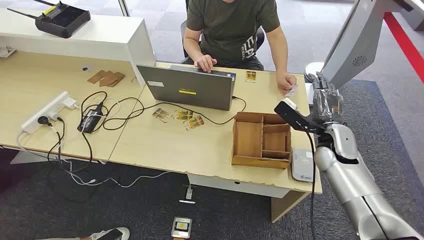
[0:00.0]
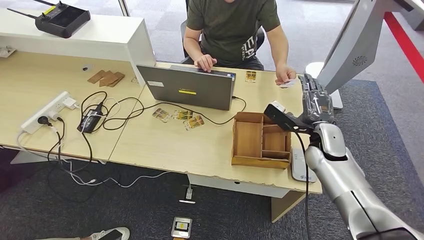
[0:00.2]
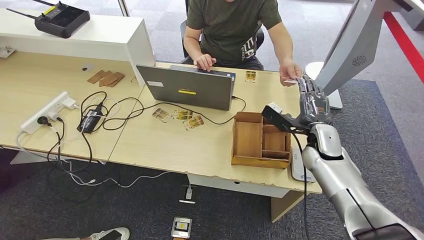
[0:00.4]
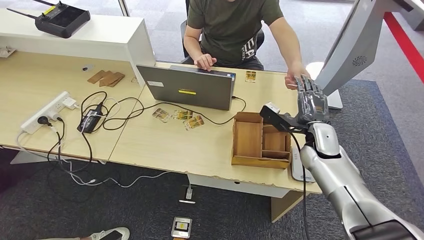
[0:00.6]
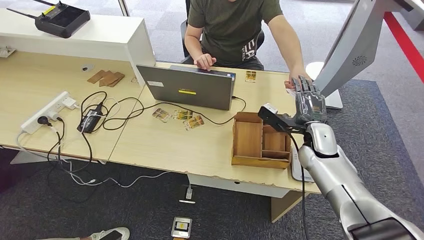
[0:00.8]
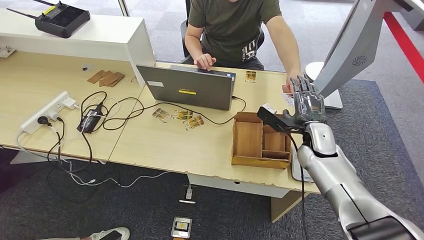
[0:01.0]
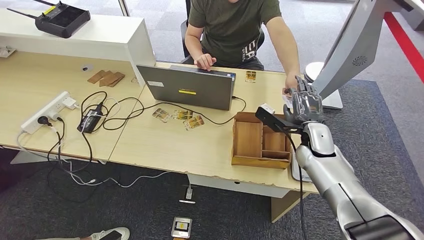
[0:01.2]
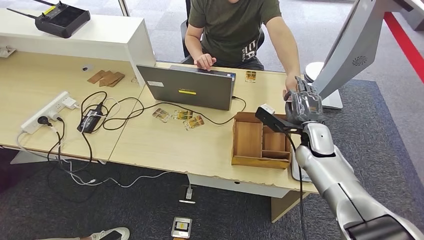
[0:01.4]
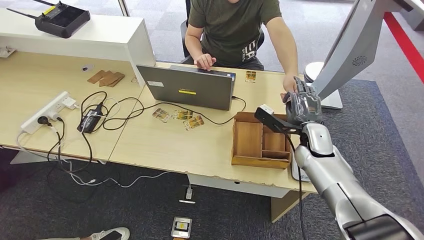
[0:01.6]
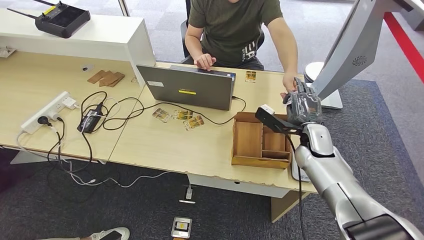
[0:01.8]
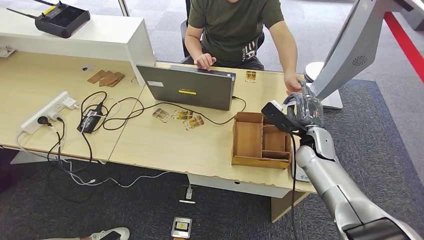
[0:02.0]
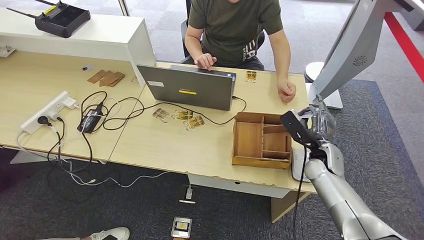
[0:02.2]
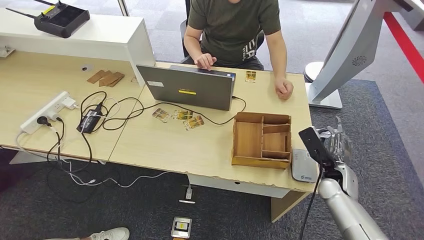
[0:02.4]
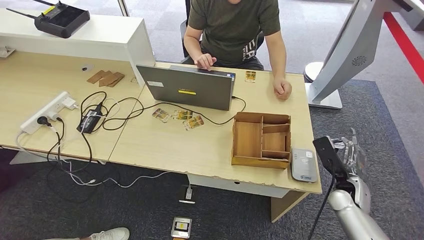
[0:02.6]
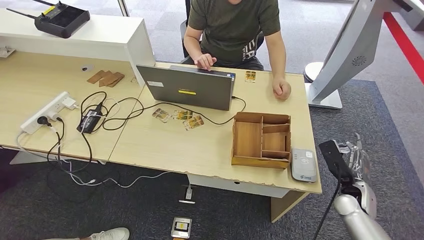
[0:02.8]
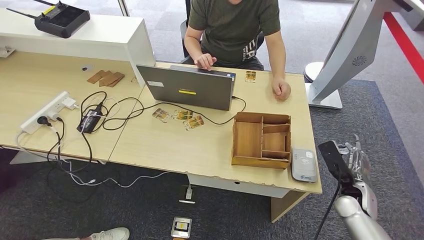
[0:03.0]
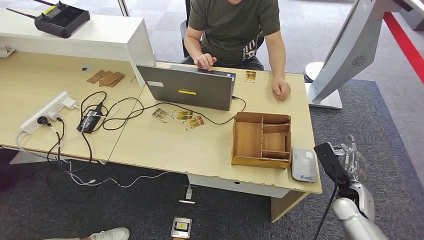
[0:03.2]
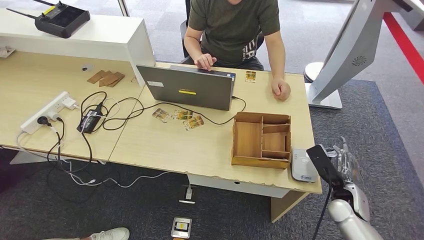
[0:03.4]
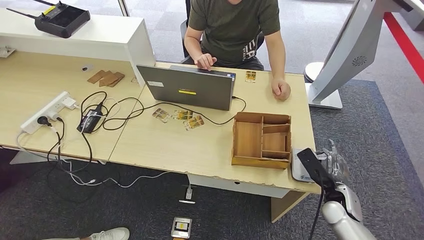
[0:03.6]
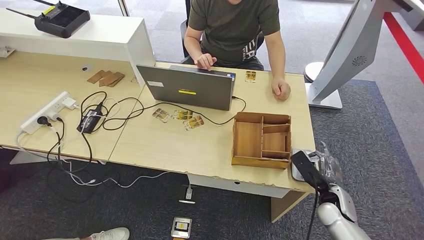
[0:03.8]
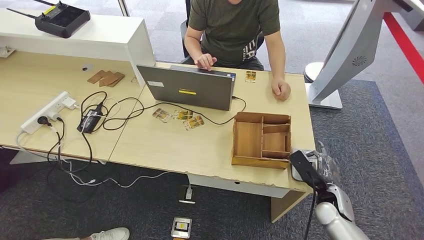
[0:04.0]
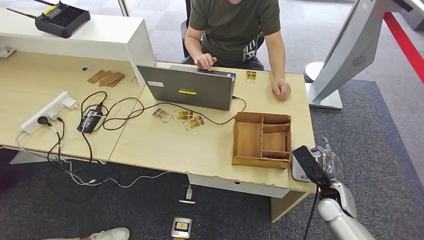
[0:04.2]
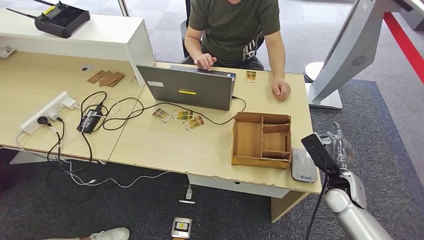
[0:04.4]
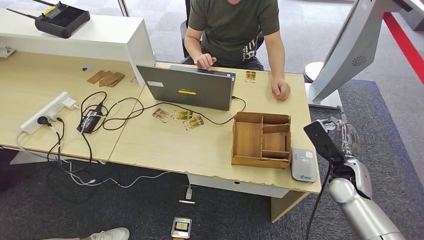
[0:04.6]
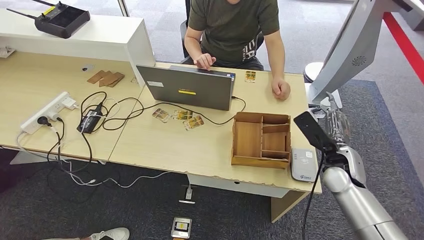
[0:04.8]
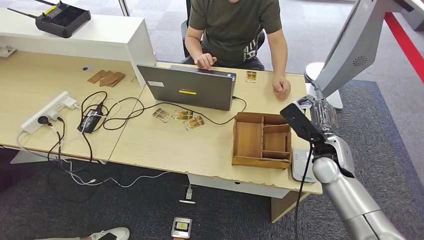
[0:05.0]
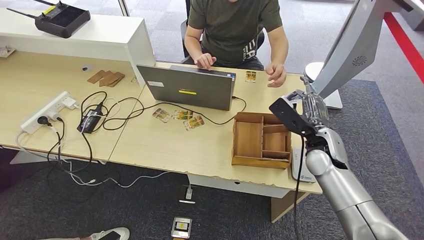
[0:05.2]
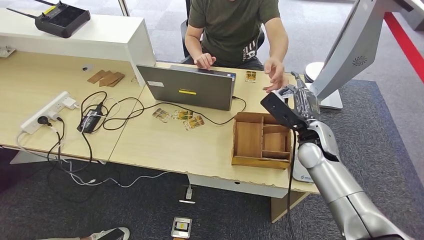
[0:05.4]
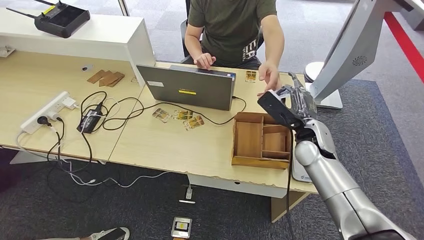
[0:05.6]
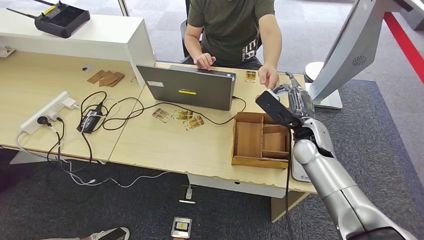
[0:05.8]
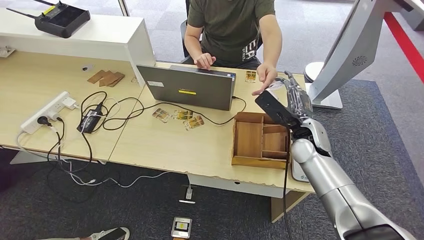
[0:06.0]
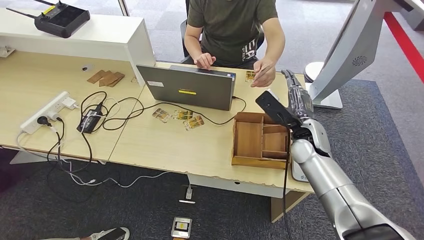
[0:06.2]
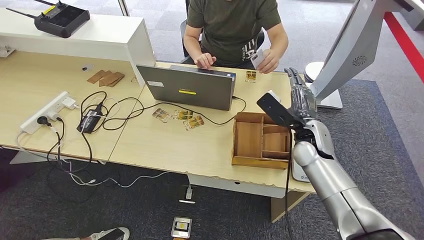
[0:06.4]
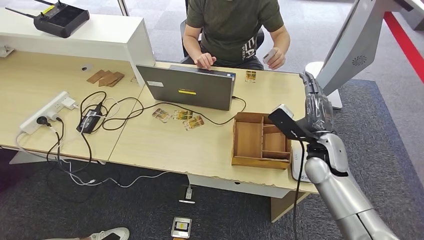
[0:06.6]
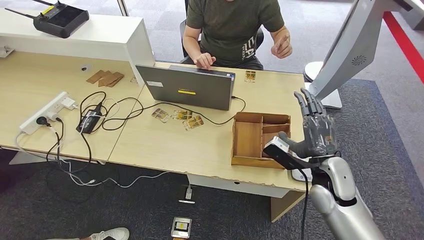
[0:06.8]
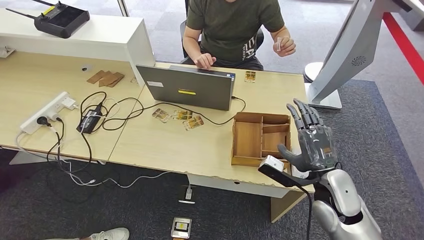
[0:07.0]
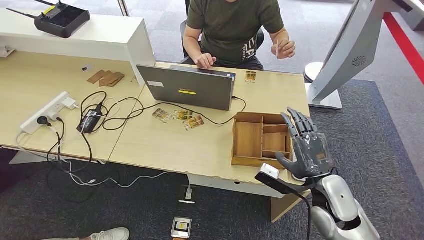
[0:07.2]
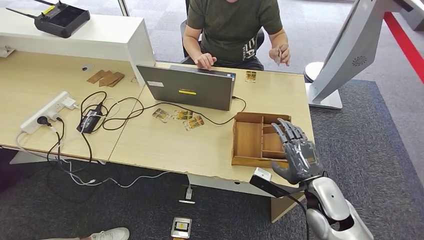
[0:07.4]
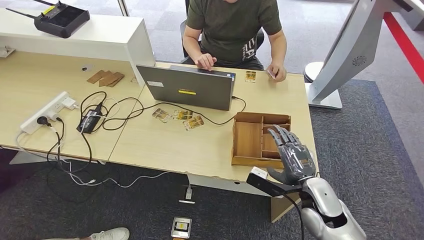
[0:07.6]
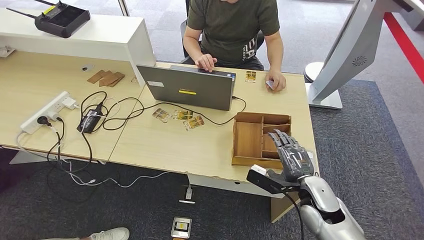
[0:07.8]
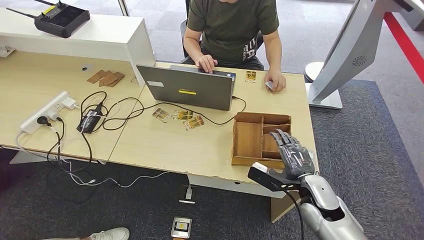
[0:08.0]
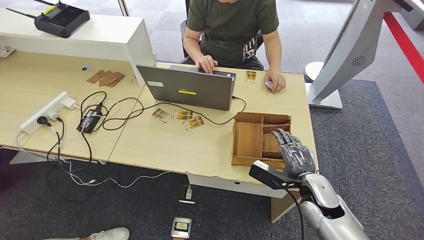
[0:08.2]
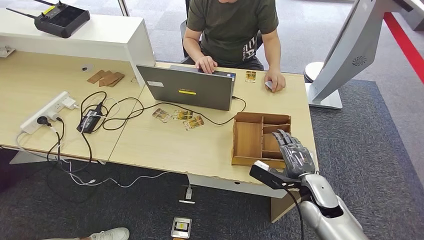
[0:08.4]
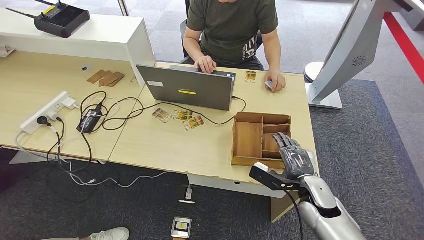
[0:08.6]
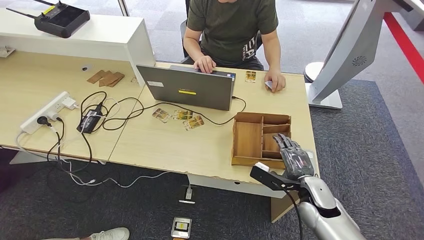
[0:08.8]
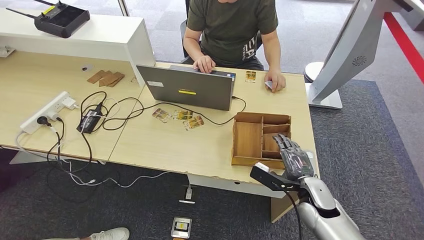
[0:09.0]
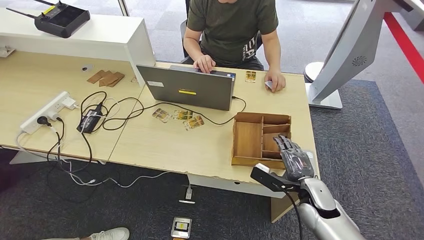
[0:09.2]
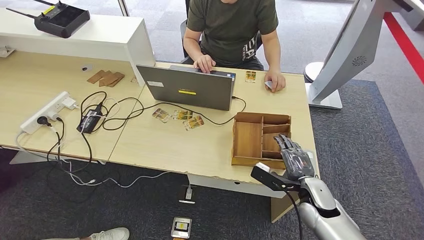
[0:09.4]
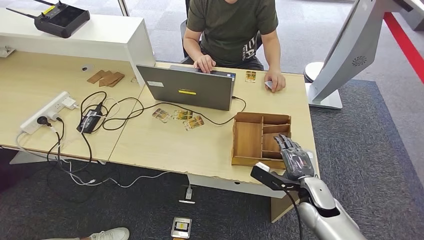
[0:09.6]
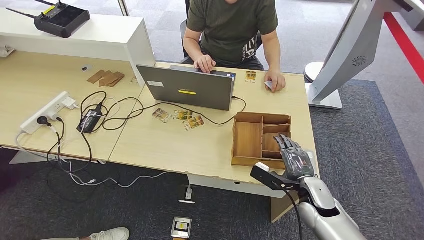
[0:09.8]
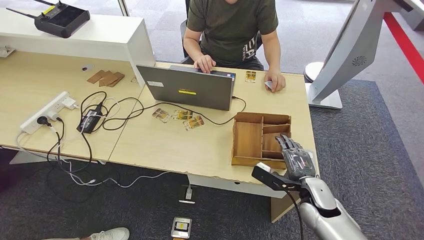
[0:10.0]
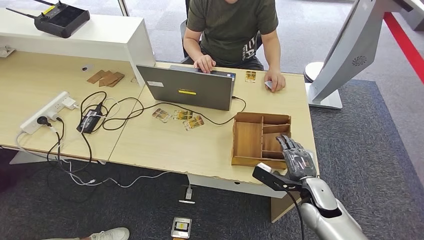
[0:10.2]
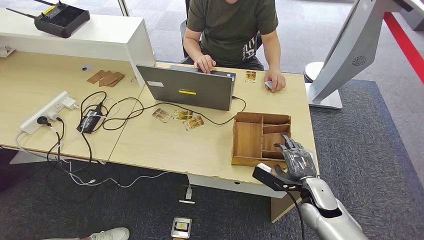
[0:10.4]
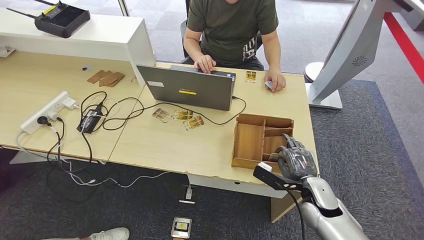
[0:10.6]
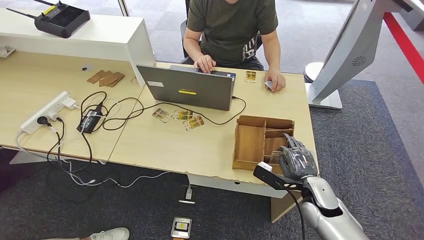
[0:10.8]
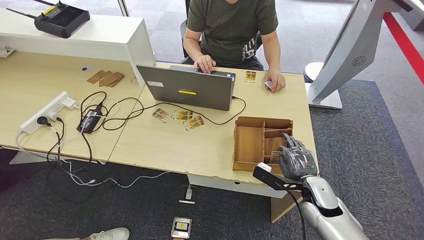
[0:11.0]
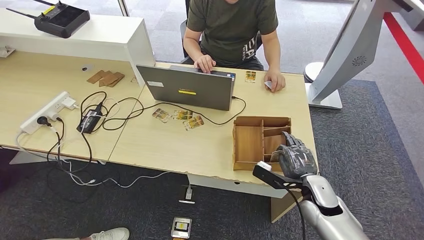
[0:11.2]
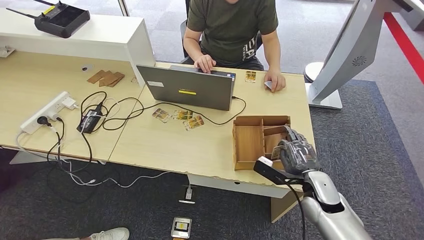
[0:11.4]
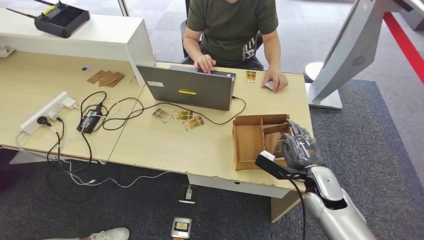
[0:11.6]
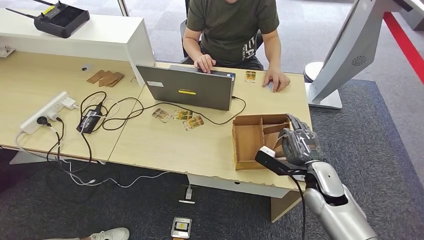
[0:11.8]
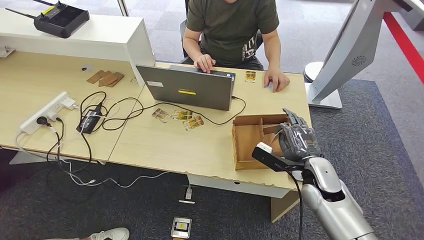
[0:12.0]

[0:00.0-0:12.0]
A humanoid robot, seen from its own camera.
Step, 0:00.0 to 0:02.4: Take the ID card from the person's hand.
Step, 0:02.6 to 0:04.4: Place the ID card on the card reader.
Step, 0:04.8 to 0:07.0: Hand the ID card to the person.
0:01.6 to 0:03.0: The right hand heads to the right, backward and downward, covering approximately 20 cm.
0:03.0 to 0:04.4: The hands move only a little.
0:04.4 to 0:06.0: The right hand is displaced to the left, upward and forward by about 20 cm. The left hand goes about 5 cm forward.
0:06.0 to 0:07.6: The right hand moves backward and downward, roughly 15 cm; the left hand travels backward by roughly 5 cm.
0:07.6 to 0:09.0: The hands stay close to where they were, moving slightly.
0:09.0 to 0:10.4: Both hands stay about where they are.
0:10.4 to 0:12.0: The right hand goes some 5 cm upward.

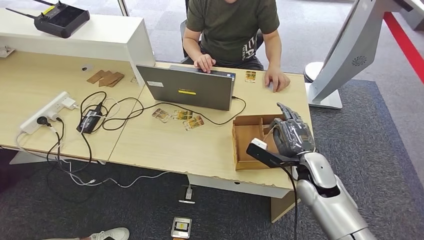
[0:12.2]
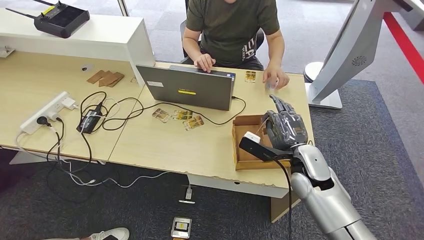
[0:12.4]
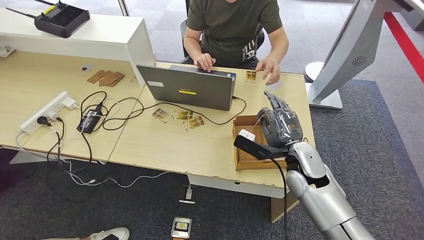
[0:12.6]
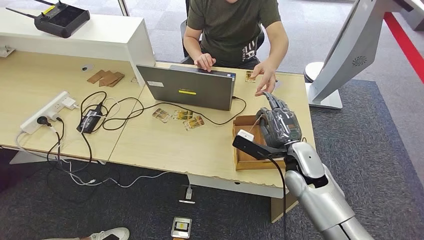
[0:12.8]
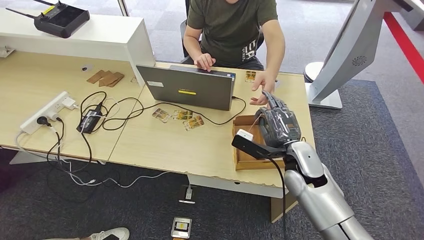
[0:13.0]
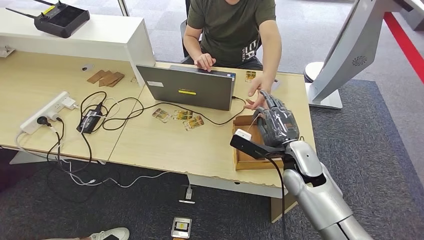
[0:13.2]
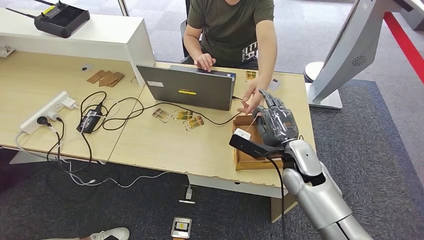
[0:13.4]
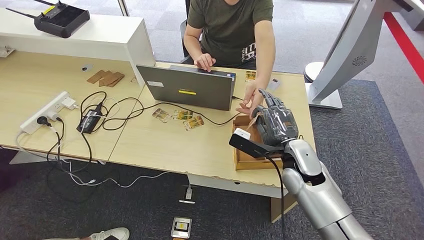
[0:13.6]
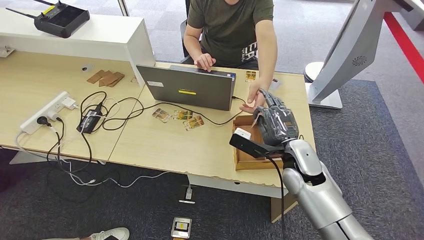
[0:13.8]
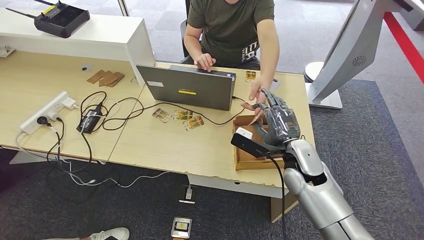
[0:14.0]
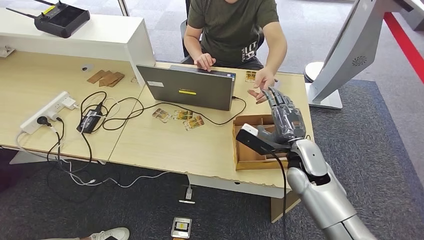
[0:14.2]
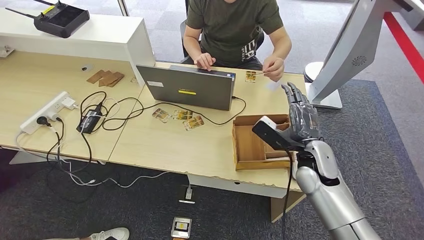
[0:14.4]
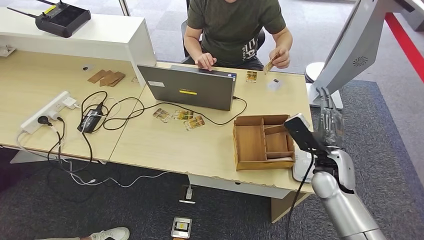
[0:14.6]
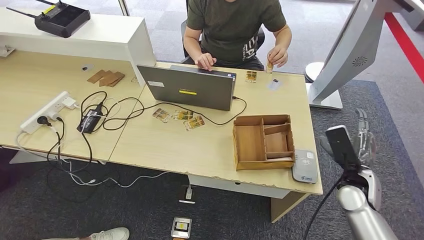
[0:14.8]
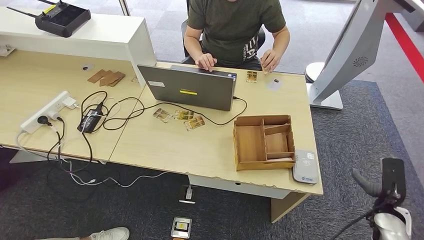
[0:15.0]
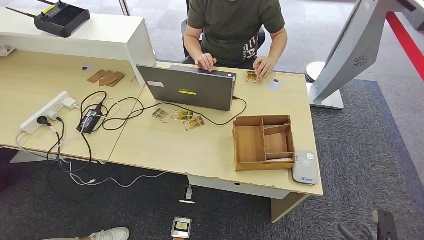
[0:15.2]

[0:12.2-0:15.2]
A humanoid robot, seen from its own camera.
Step, 0:12.6 to 0:15.2: Hand the room key to the person.
0:12.2 to 0:13.8: The right hand moves approximately 5 cm.
0:13.8 to 0:15.2: The right hand shifts roughly 40 cm to the right, downward and backward.
